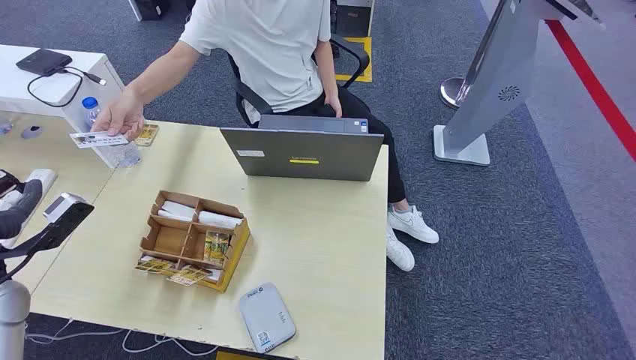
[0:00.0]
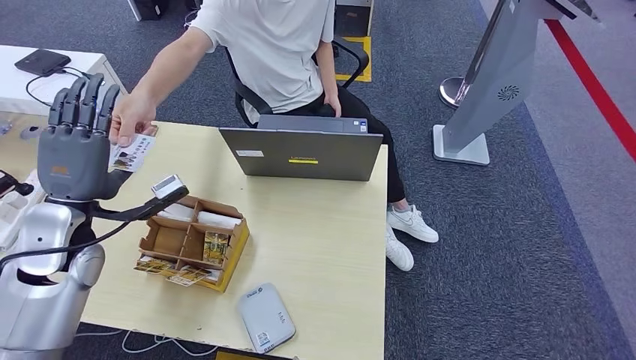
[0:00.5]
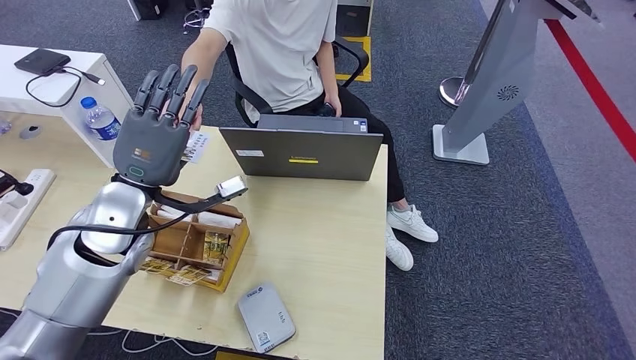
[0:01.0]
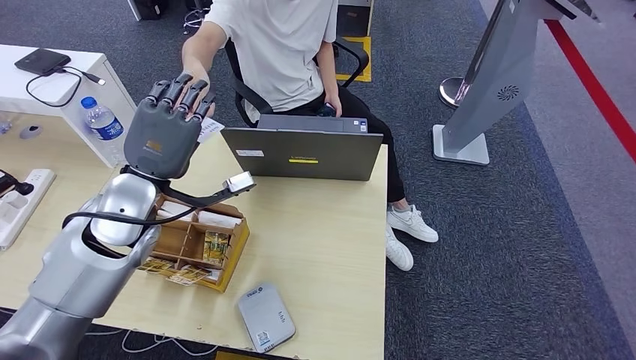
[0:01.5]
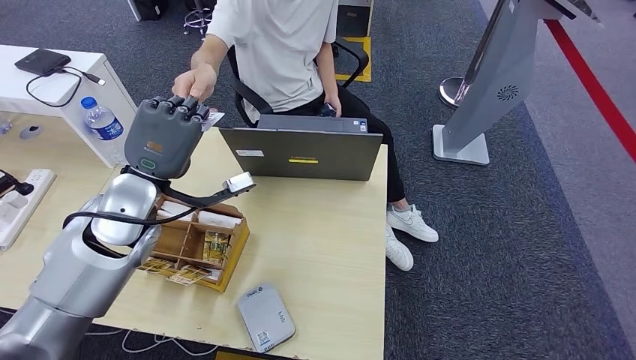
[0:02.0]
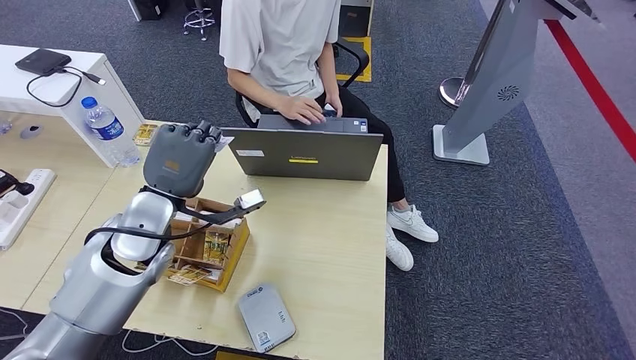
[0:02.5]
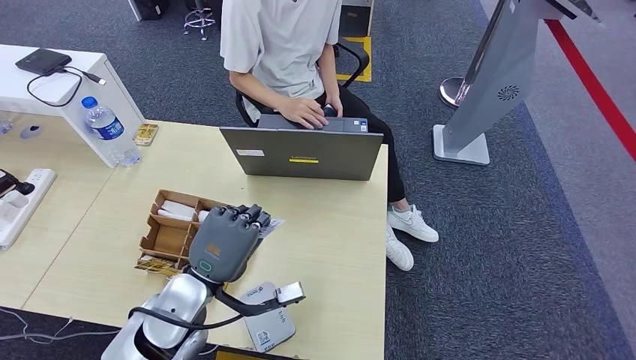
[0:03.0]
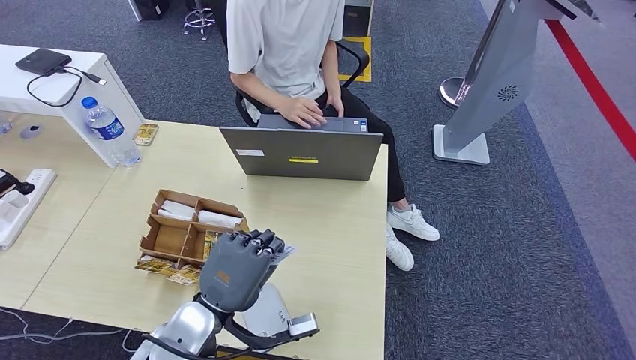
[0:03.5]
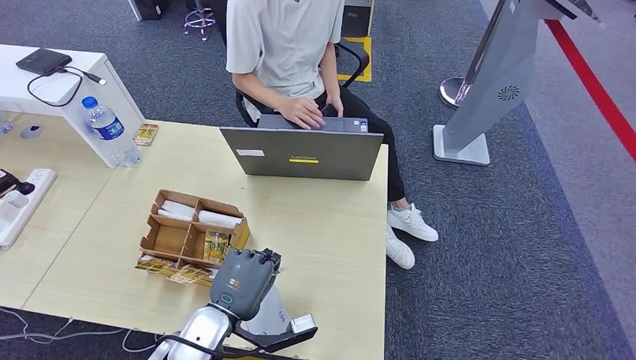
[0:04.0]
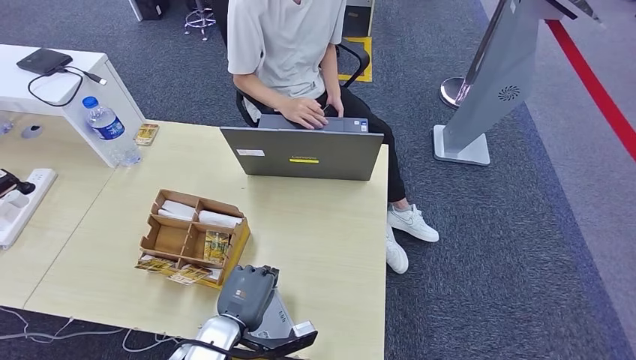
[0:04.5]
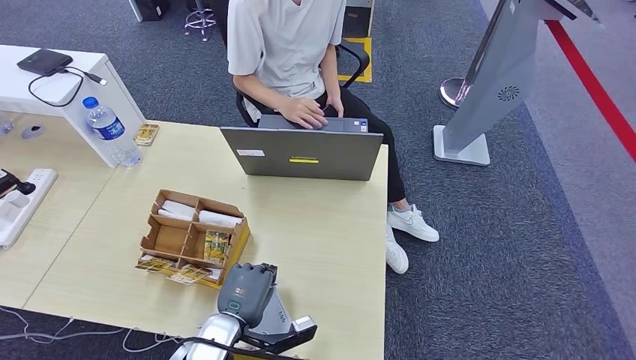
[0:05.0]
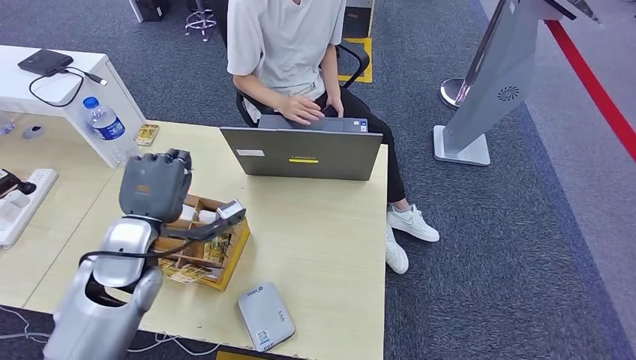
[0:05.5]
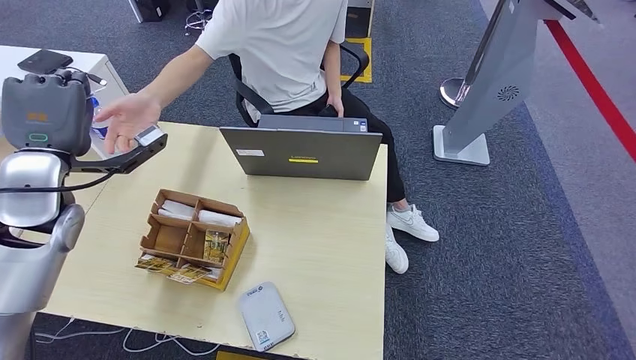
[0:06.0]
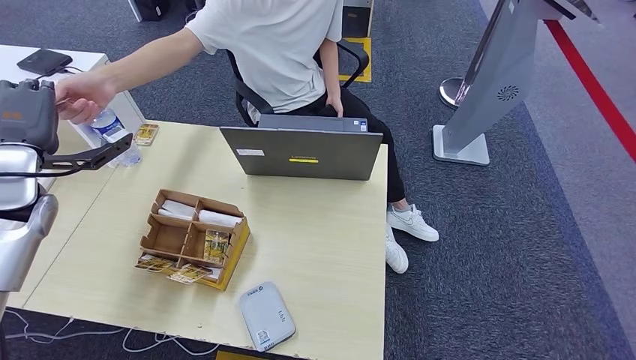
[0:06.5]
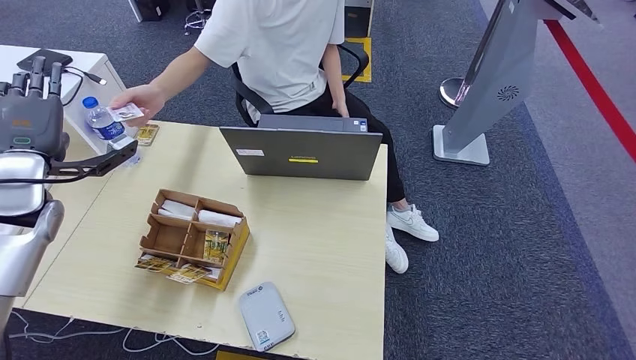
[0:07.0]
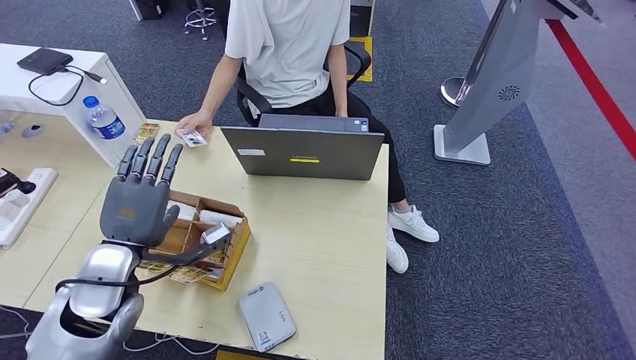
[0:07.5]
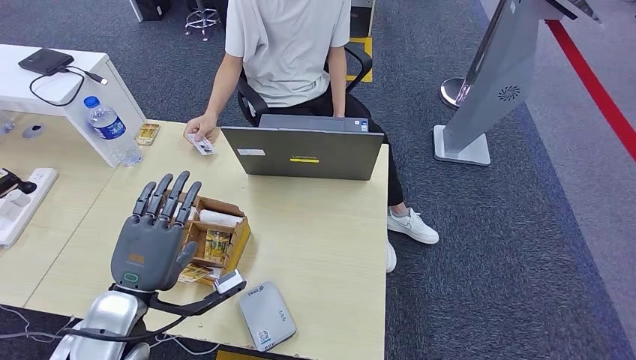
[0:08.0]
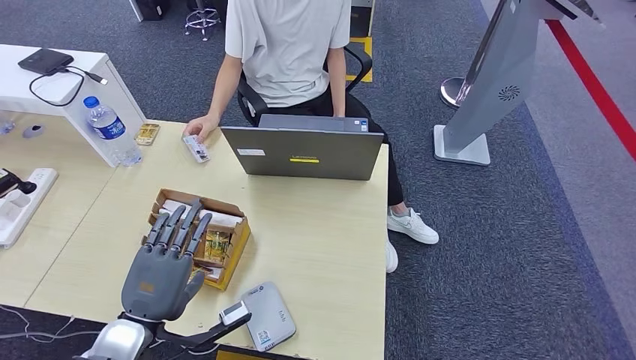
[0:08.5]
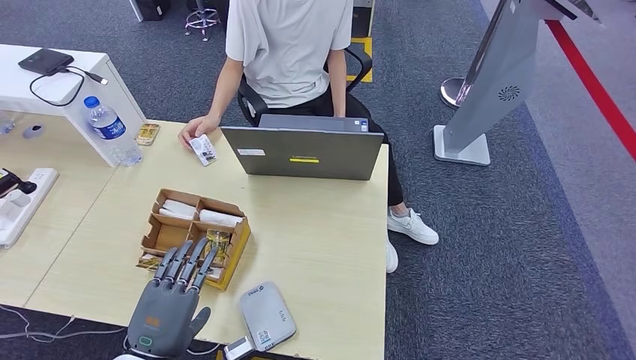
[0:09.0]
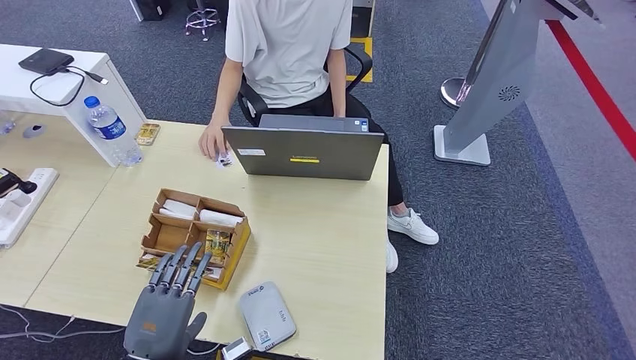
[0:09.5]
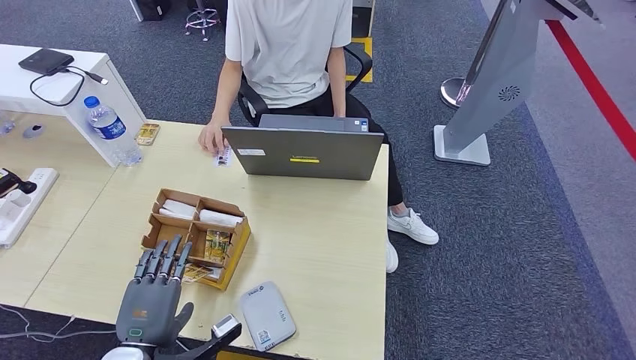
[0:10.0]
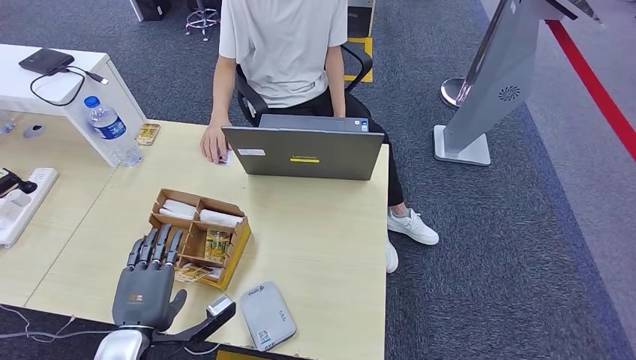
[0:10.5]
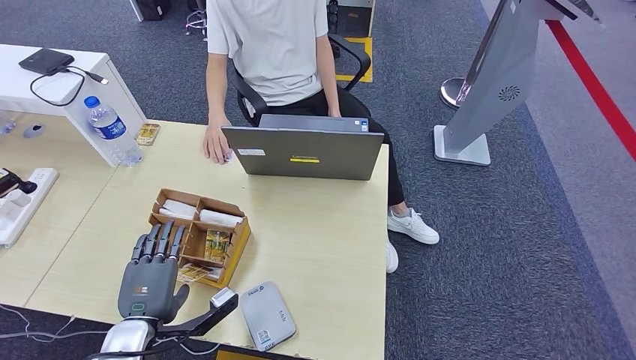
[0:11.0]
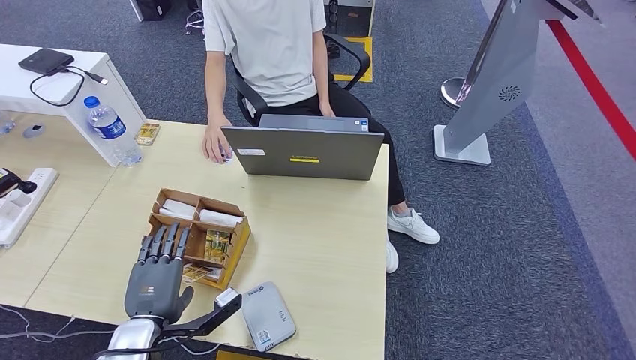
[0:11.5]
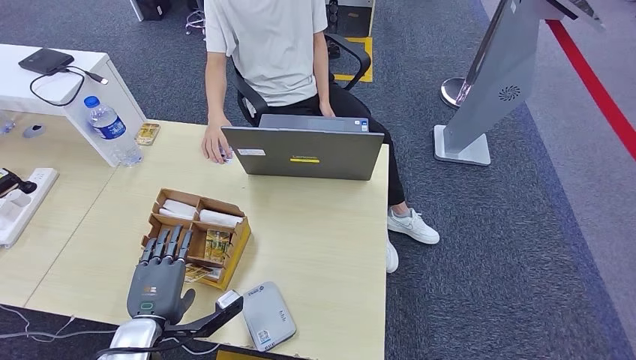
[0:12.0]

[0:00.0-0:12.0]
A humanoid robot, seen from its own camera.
Step, 0:00.0 to 0:03.0: Take the ID card from the person's hand.
Step, 0:03.5 to 0:04.5: Place the ID card on the card reader.
Step, 0:05.0 to 0:07.5: Hand the ID card to the person.
0:04.0 to 0:06.0: The left hand moves upward, forward and to the left, some 30 cm.
0:08.0 to 0:10.0: The left hand goes about 10 cm downward and backward.
0:10.0 to 0:12.0: The hands make only small movements.

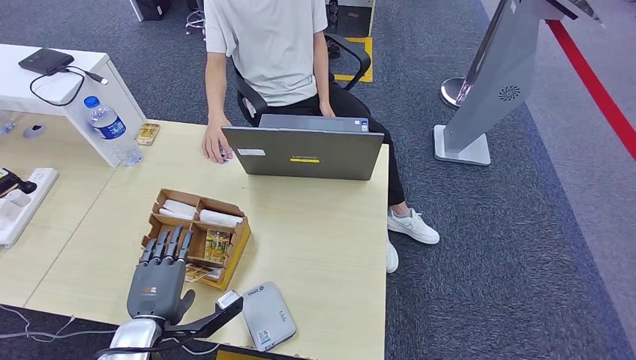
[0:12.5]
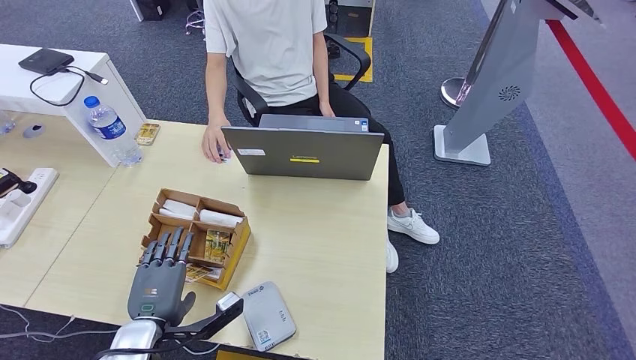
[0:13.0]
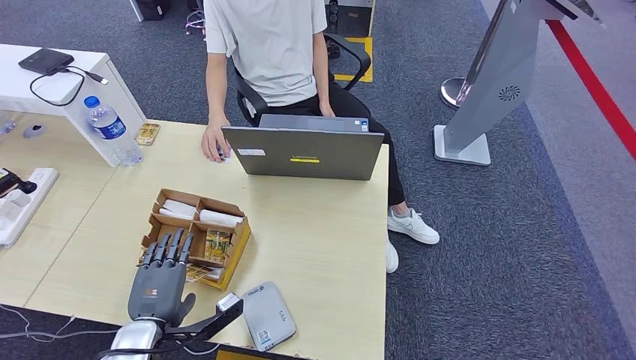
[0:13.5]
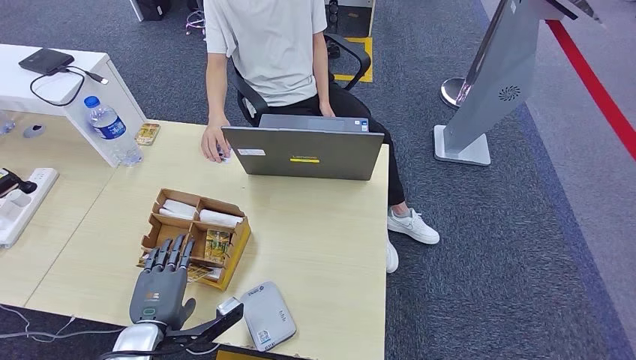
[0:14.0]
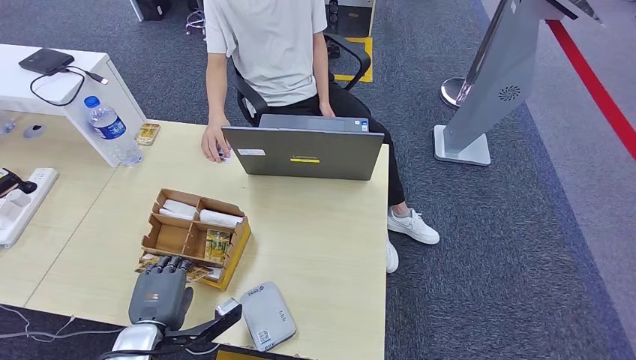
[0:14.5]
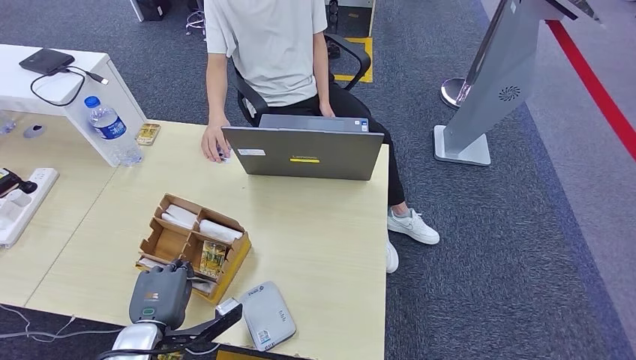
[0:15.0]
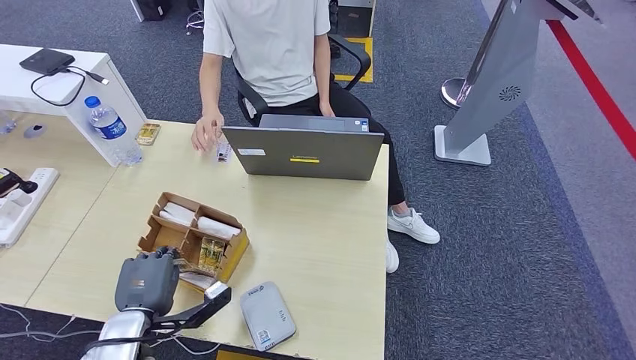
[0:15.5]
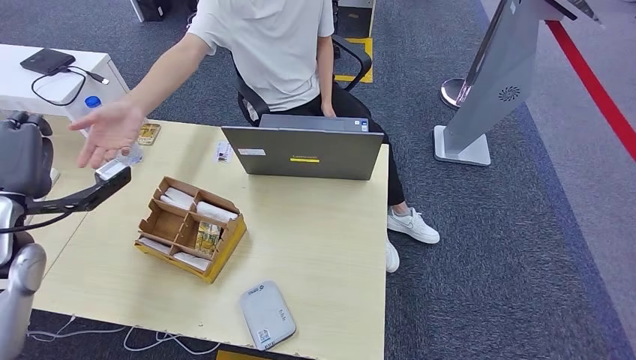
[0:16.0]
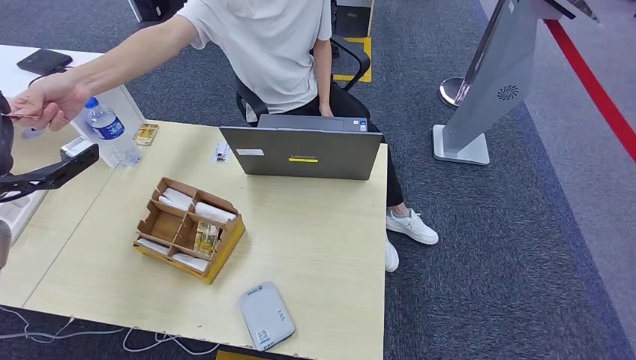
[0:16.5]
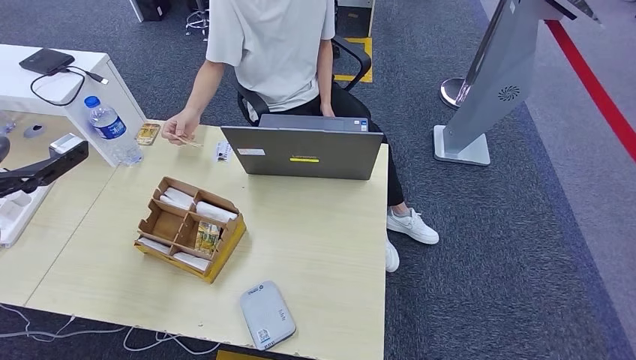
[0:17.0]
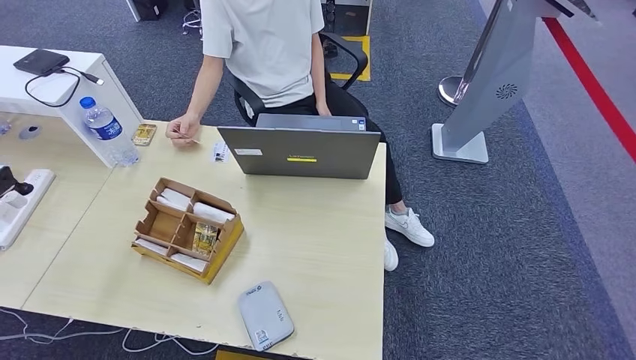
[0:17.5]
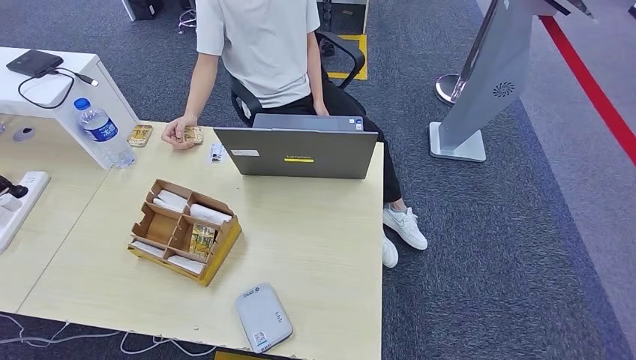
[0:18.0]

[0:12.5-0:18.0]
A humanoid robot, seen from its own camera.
Step, 0:14.5 to 0:15.5: Pick up the room key from the key card box.
Step, 0:16.0 to 0:18.0: Hand the room key to the person.
0:12.5 to 0:14.5: The hands make only small movements.
0:14.5 to 0:16.0: The left hand goes some 30 cm upward, forward and to the left.
